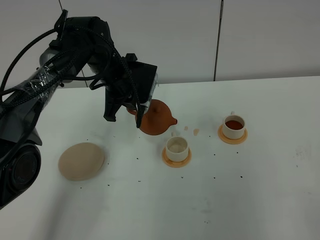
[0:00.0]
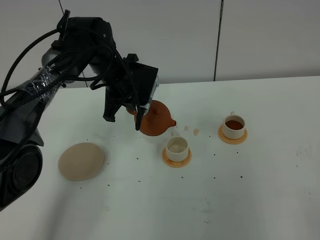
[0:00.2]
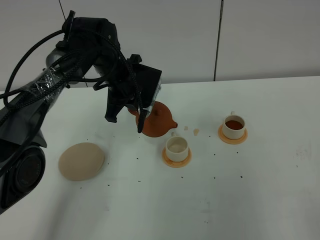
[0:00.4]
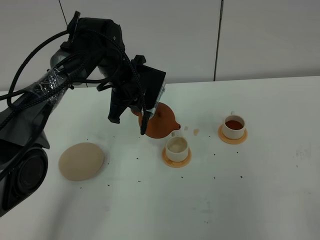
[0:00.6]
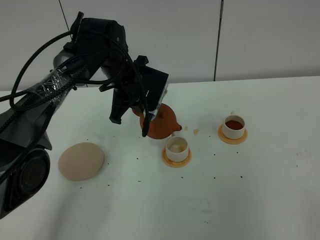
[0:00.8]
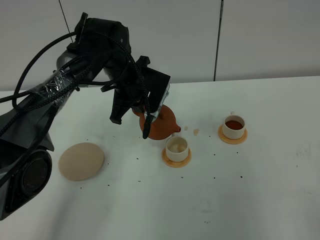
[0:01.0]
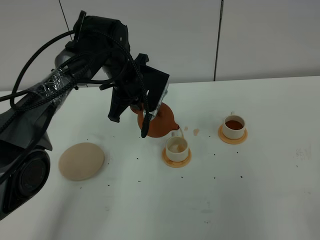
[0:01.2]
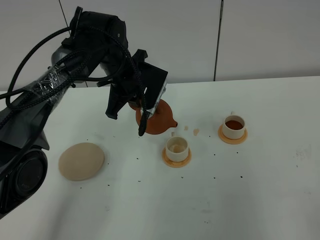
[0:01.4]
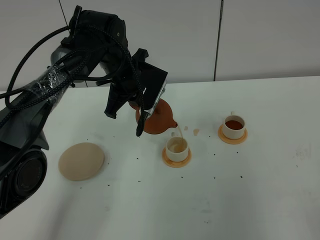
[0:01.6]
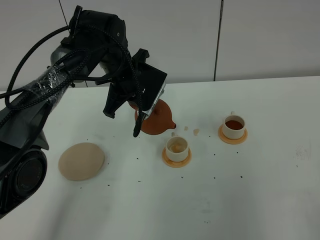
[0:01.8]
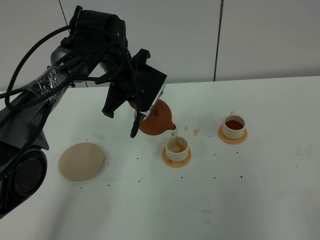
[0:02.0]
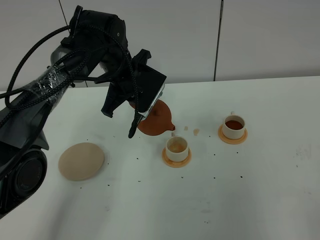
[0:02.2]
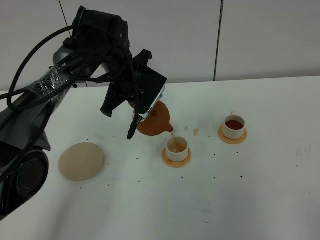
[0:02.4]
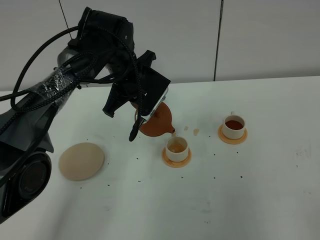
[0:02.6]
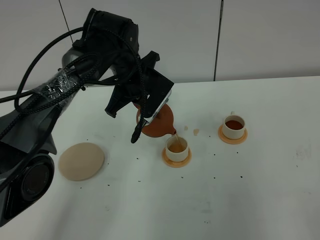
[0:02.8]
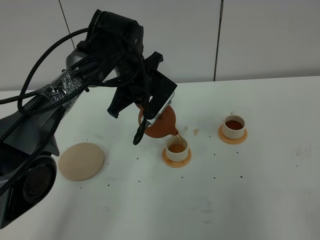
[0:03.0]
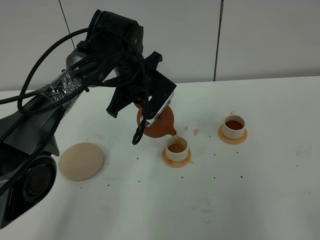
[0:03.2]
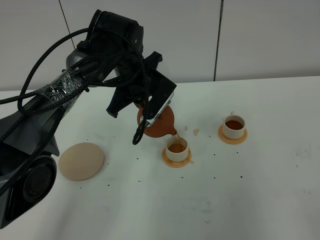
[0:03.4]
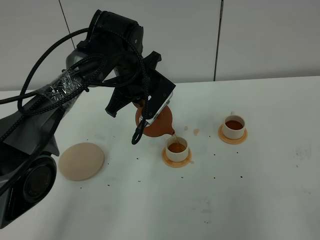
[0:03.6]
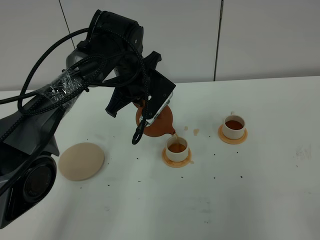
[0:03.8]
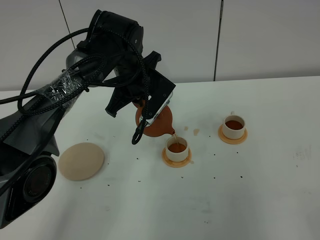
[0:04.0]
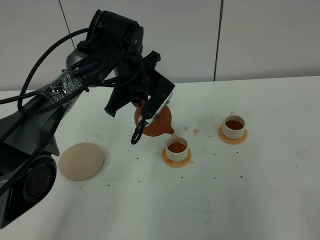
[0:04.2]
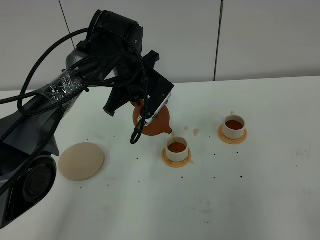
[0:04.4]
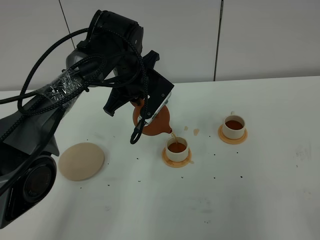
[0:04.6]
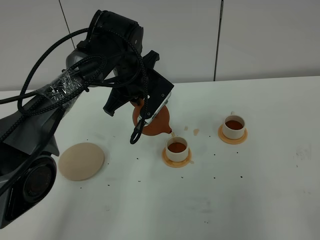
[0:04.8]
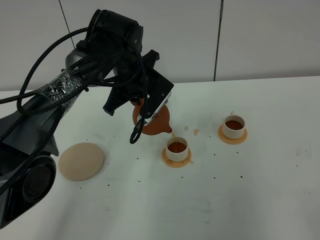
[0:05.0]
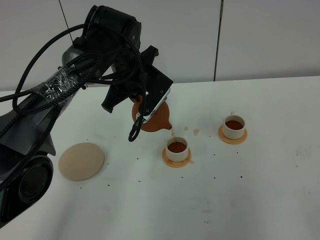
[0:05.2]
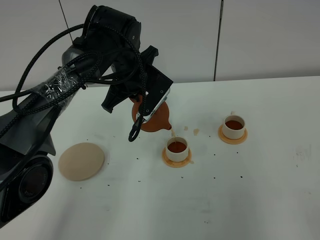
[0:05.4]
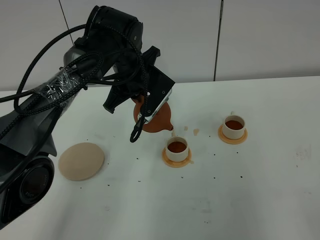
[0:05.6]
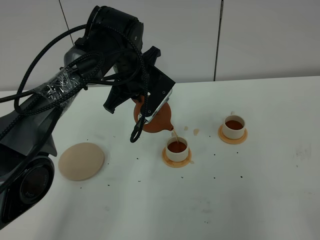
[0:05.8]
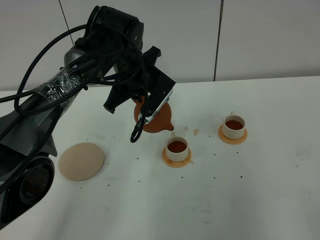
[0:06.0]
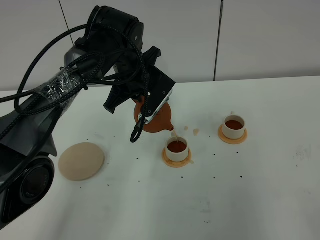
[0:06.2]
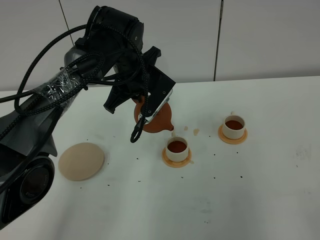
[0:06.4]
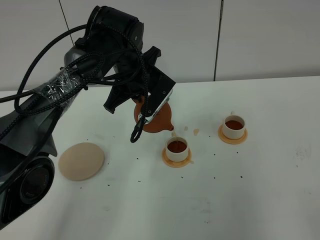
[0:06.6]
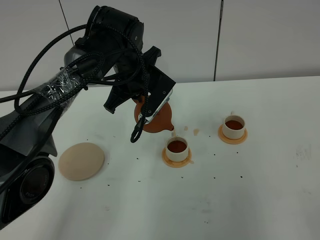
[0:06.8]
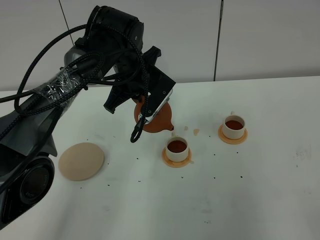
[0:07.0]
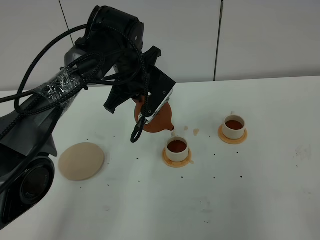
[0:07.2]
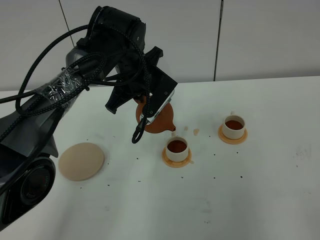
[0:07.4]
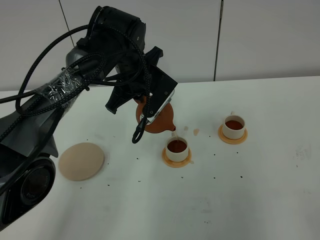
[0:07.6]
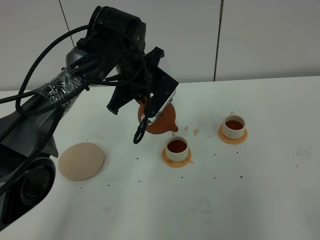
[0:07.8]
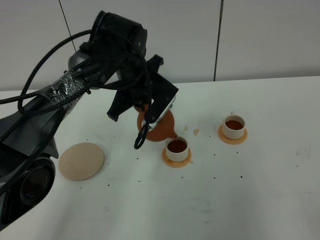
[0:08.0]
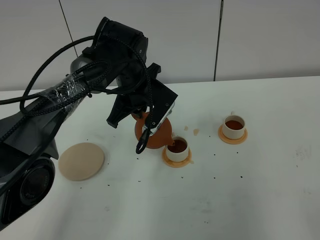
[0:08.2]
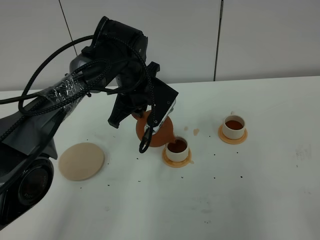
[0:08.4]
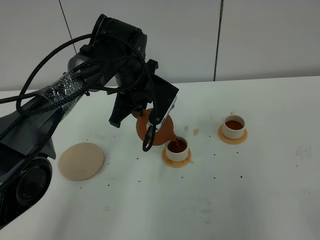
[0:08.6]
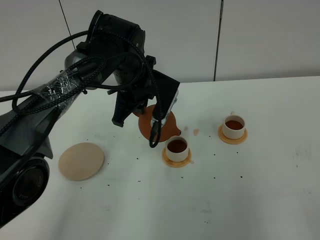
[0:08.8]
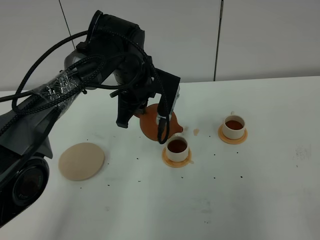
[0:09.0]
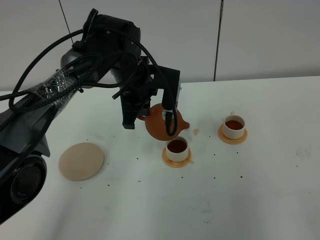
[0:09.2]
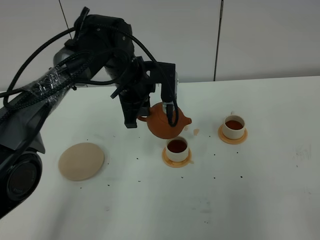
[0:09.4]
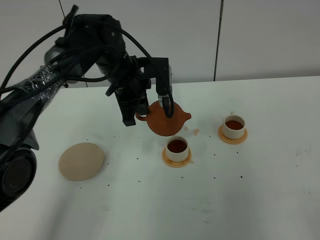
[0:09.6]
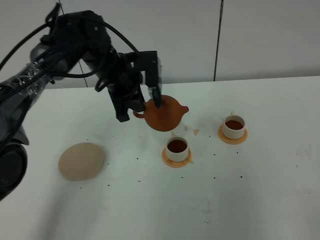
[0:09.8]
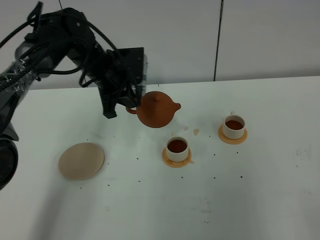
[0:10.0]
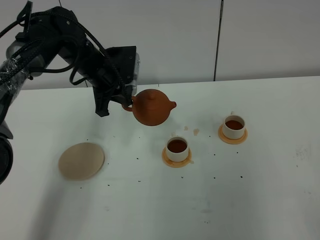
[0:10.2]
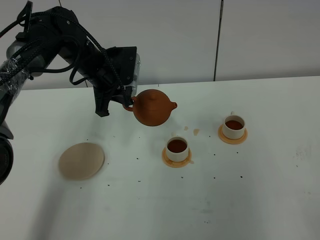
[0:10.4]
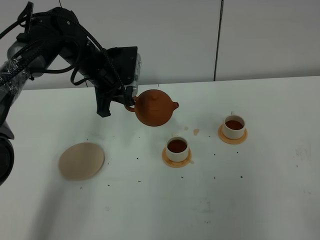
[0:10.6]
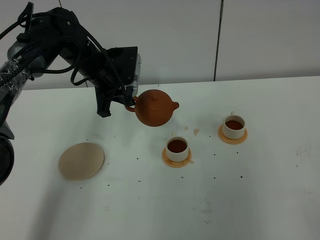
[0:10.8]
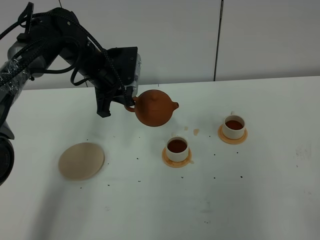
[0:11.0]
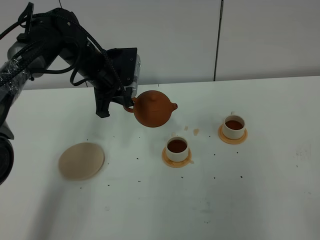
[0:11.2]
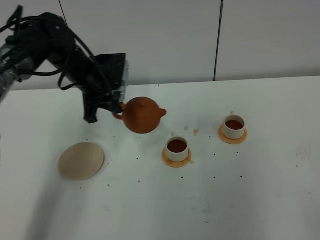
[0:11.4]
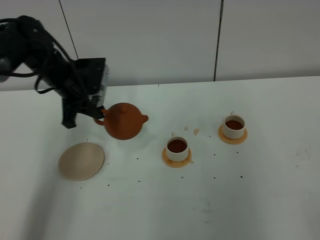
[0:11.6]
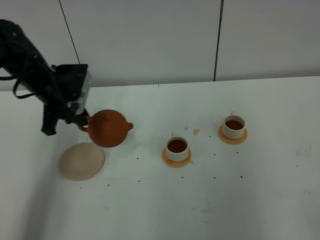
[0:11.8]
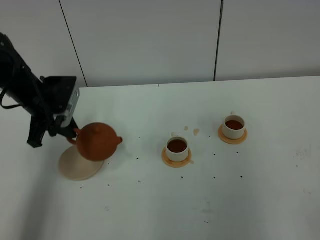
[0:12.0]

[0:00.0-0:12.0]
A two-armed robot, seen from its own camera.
Task of the whole recording: grasp the brown teapot and pour the tea into the two white teacups one by one, put the brown teapot back in its original place.
Step, 0:00.0 to 0:10.6: Pour tea into the teacup with the left gripper.
0:00.0 to 0:01.6: The grippers make only small movements.
0:01.6 to 0:03.0: The grippers stay close to where they were, moving slightly.
0:03.0 to 0:07.6: Both grippers stay about where they are.
0:09.0 to 0:10.4: The left gripper moves to the left, some 10 cm.
0:10.4 to 0:12.0: The left gripper shifts roughly 15 cm to the left and backward.

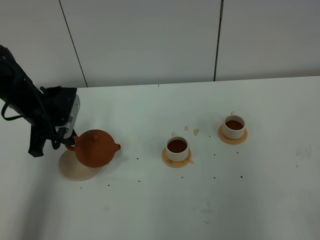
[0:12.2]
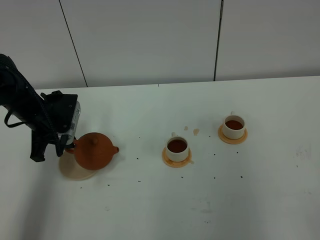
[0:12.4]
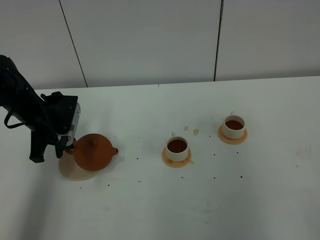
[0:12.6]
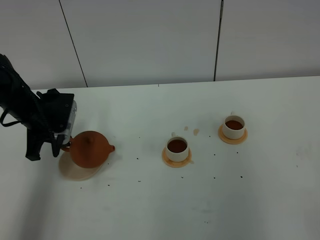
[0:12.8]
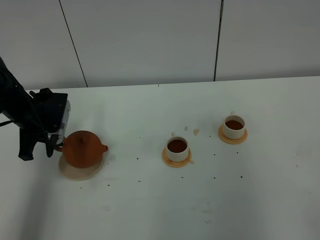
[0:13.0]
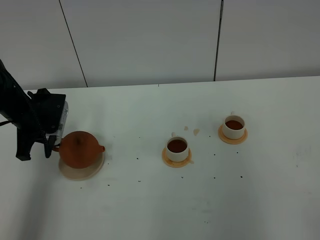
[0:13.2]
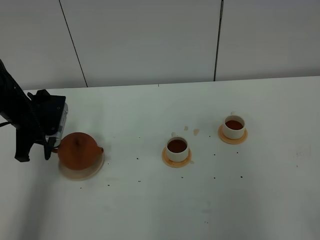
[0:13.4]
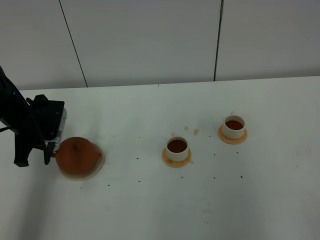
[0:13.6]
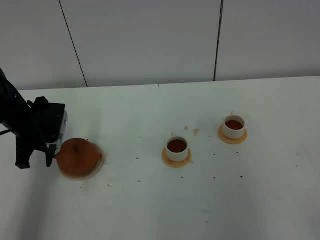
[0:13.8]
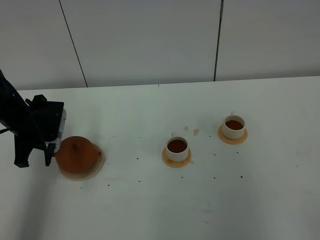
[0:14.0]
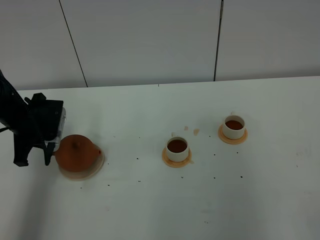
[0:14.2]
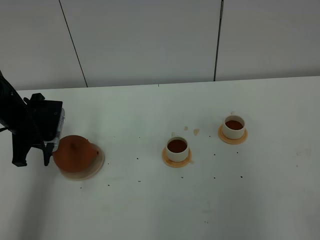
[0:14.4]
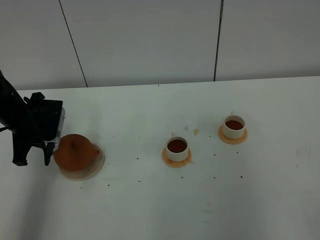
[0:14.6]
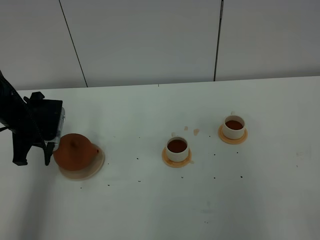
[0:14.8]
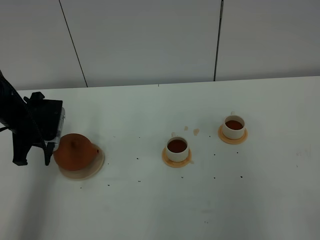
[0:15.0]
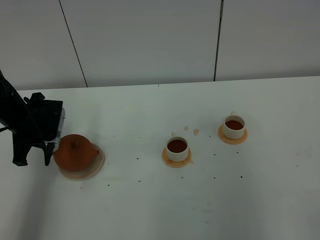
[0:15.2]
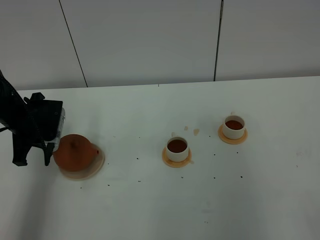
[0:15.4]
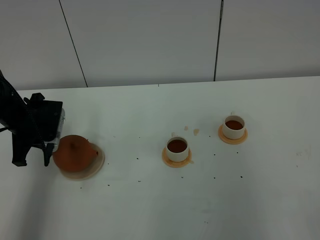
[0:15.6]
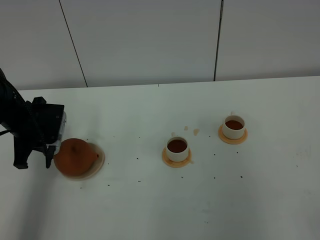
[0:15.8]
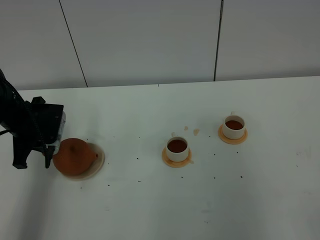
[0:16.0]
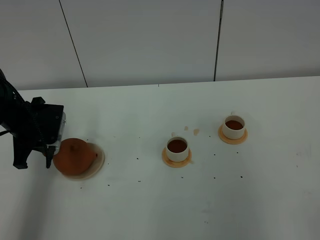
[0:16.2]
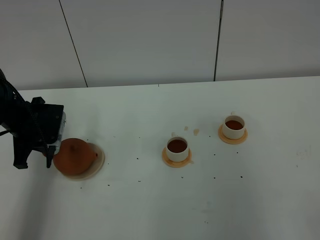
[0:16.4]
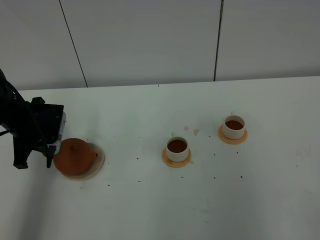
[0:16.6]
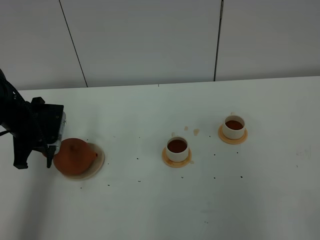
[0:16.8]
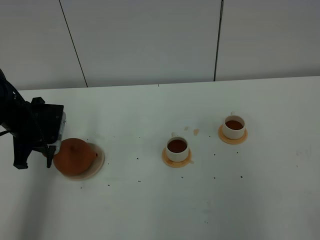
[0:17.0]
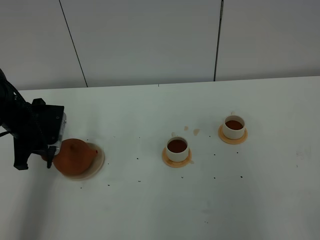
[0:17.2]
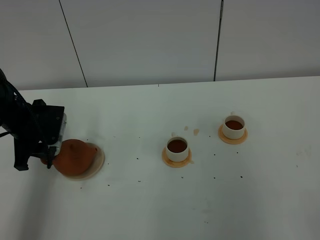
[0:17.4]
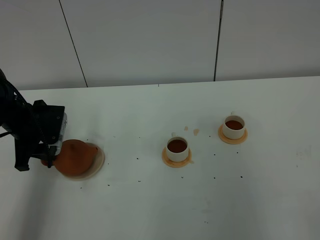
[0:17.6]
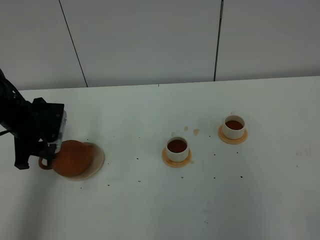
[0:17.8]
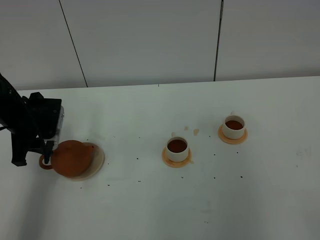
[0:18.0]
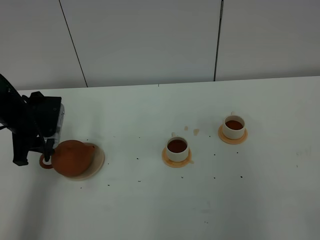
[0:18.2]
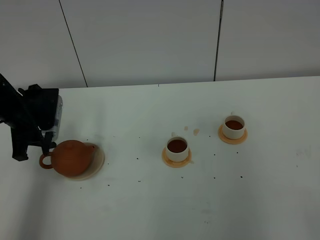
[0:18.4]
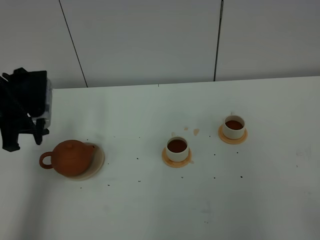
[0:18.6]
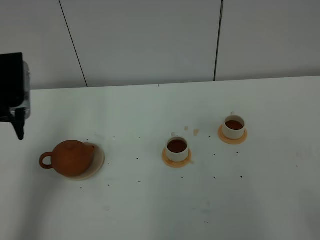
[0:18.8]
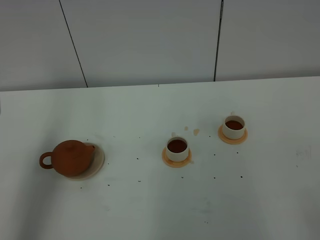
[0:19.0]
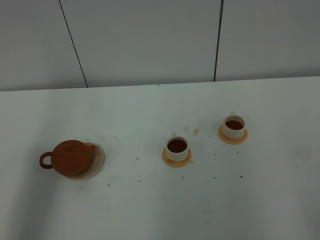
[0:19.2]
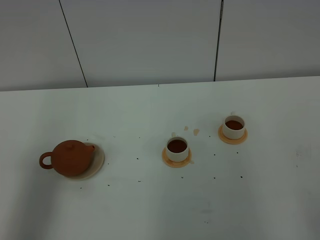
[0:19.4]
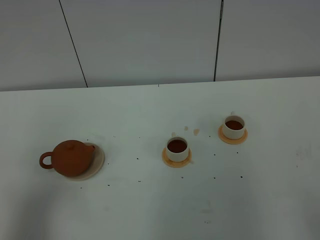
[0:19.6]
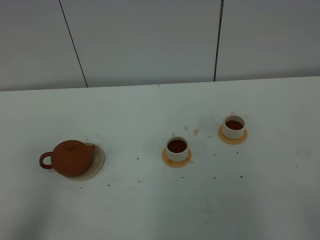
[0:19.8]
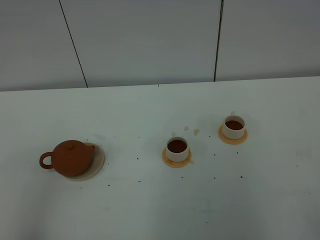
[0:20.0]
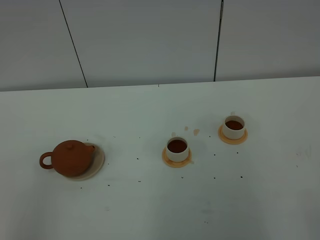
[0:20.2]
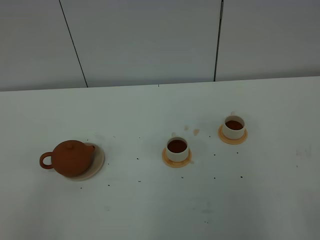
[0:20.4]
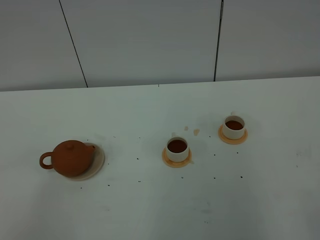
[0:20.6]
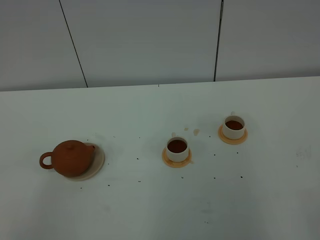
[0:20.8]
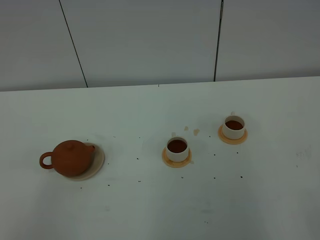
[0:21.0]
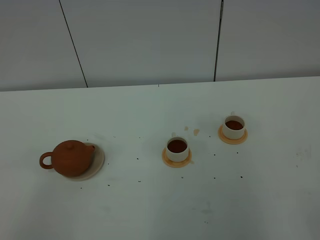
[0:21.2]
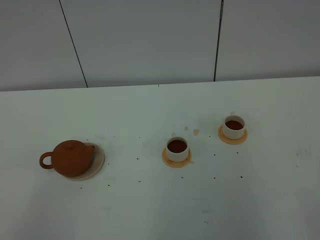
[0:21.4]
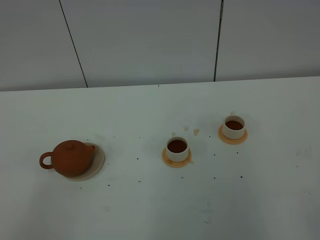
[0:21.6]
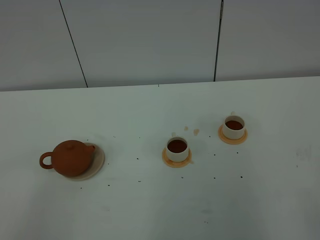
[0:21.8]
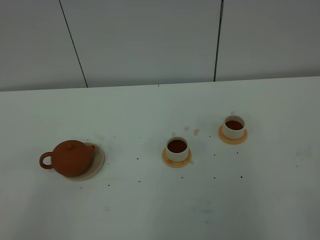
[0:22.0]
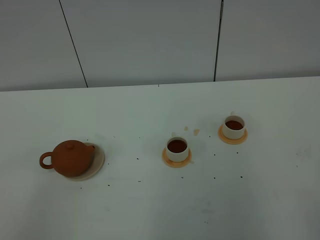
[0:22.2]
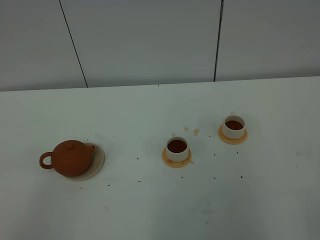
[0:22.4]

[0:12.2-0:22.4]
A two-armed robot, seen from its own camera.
Task of the whole recording: grasp the brown teapot and pour the tea into the two white teacups one by one, put the brown teapot back in its original place.
0:12.2 to 0:13.6: The grippers make only small movements.
0:13.6 to 0:16.6: The two grippers keep their place.
0:16.6 to 0:18.0: The left gripper opens.
0:18.0 to 0:19.4: The left gripper moves upward and backward, some 30 cm, and closes up.
0:19.4 to 0:21.0: The left gripper shifts roughly 25 cm backward and downward.
0:21.0 to 0:22.4: The two grippers keep their place.
